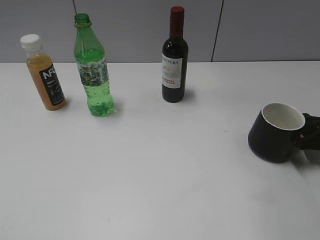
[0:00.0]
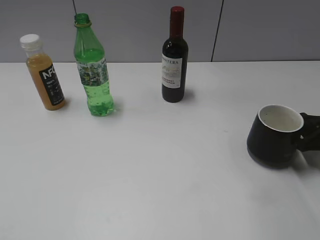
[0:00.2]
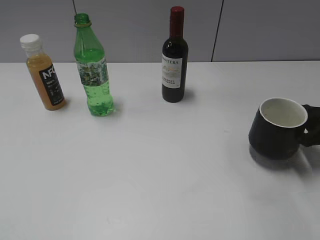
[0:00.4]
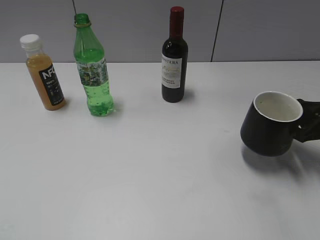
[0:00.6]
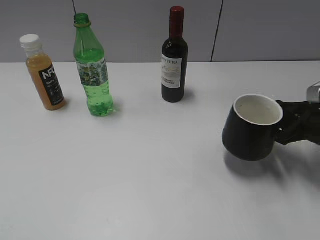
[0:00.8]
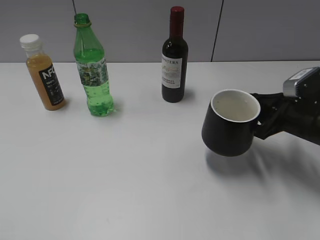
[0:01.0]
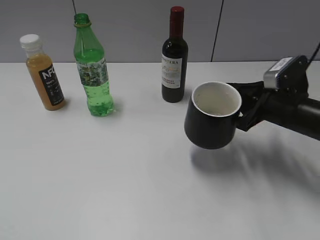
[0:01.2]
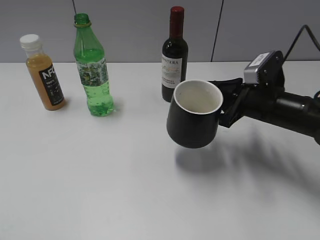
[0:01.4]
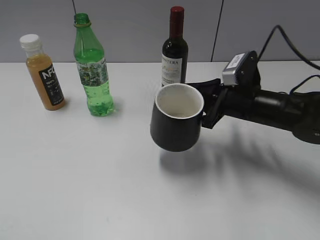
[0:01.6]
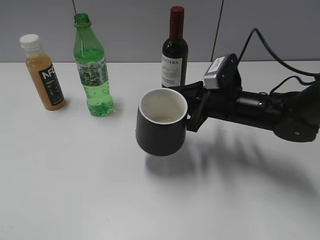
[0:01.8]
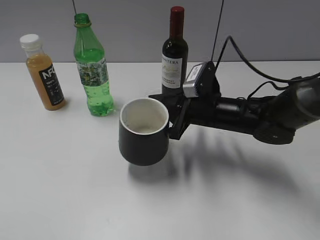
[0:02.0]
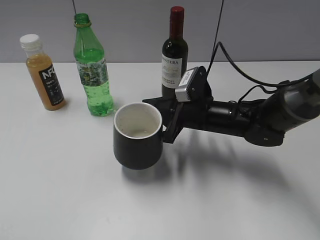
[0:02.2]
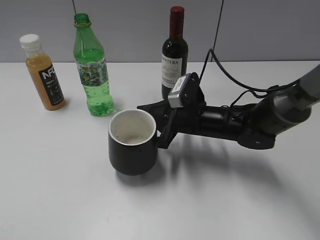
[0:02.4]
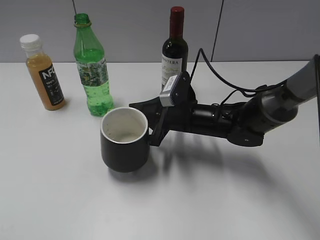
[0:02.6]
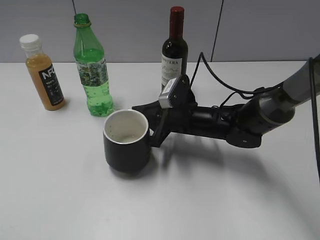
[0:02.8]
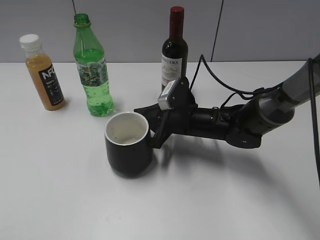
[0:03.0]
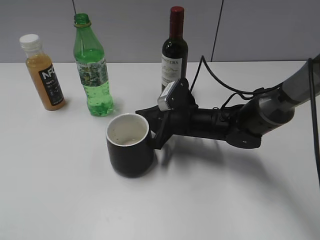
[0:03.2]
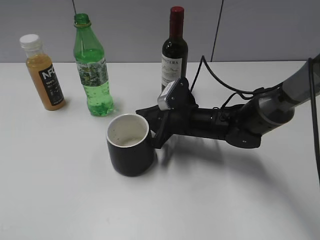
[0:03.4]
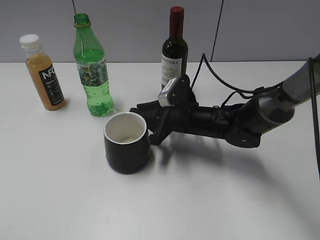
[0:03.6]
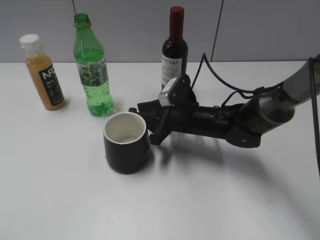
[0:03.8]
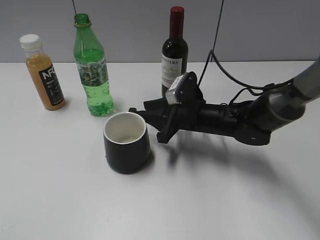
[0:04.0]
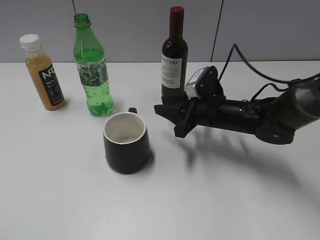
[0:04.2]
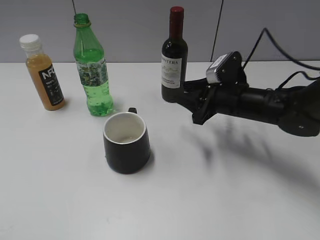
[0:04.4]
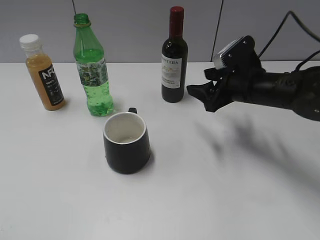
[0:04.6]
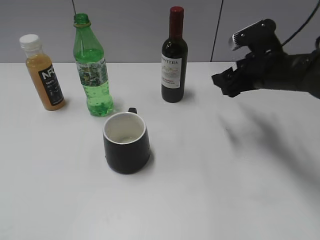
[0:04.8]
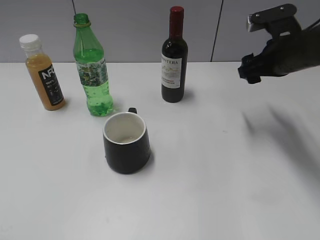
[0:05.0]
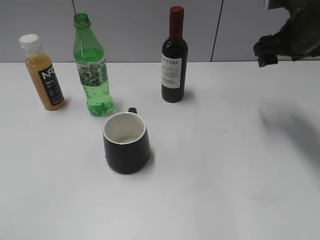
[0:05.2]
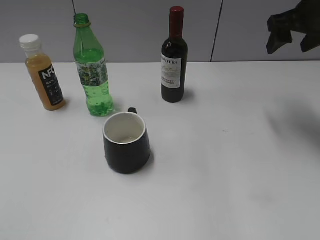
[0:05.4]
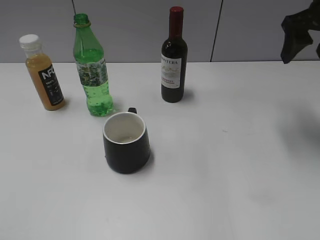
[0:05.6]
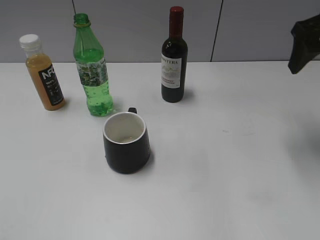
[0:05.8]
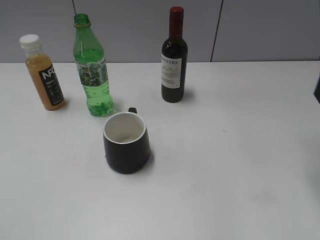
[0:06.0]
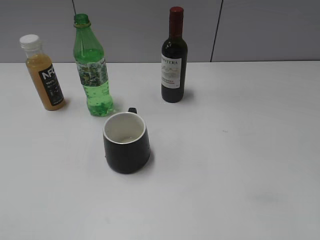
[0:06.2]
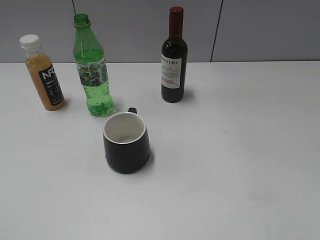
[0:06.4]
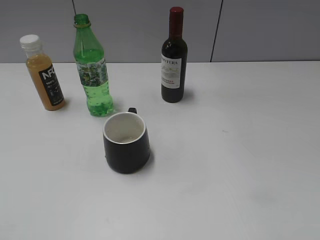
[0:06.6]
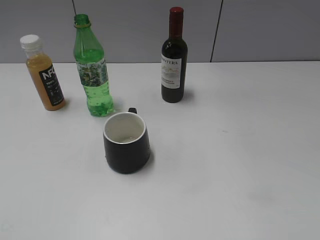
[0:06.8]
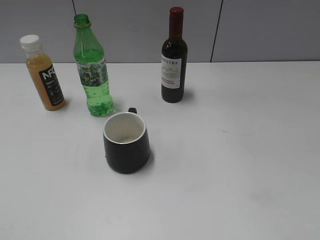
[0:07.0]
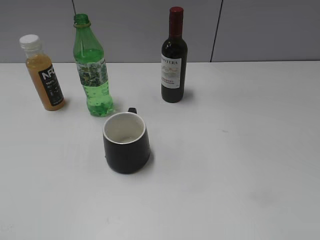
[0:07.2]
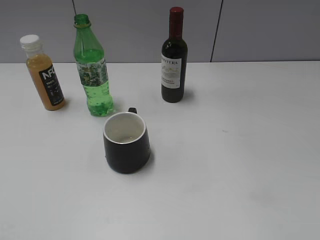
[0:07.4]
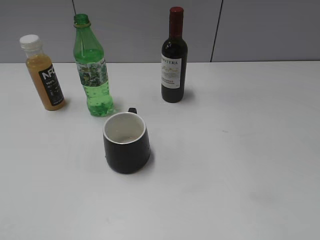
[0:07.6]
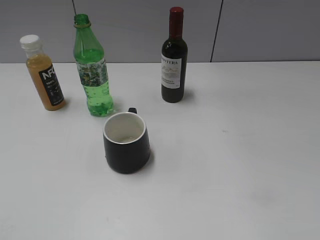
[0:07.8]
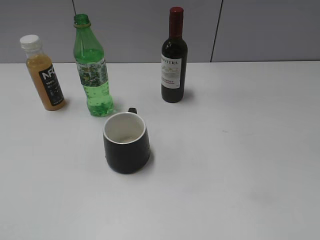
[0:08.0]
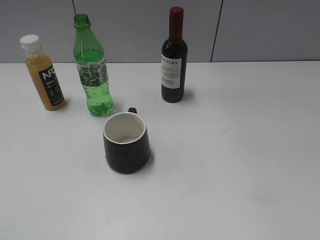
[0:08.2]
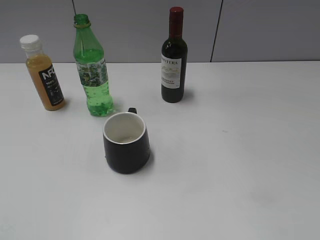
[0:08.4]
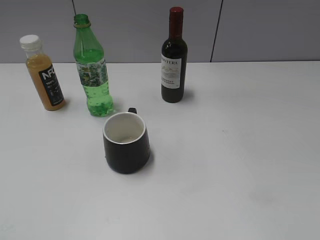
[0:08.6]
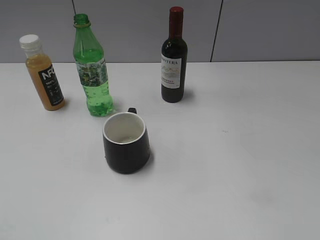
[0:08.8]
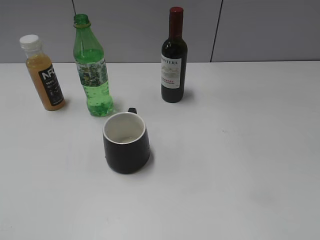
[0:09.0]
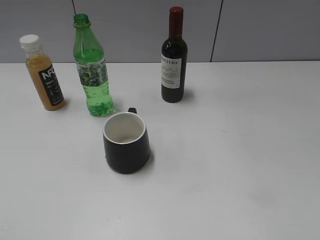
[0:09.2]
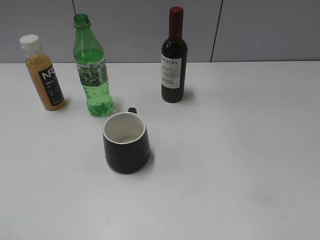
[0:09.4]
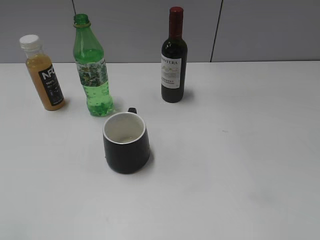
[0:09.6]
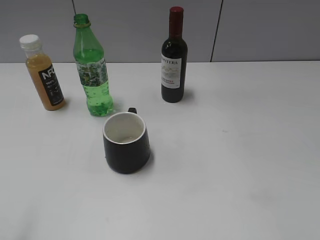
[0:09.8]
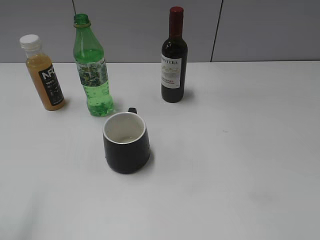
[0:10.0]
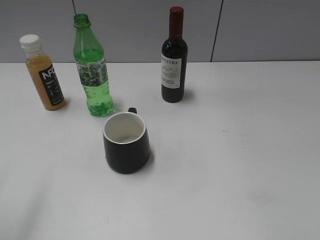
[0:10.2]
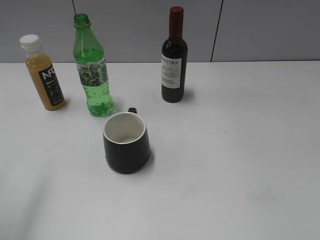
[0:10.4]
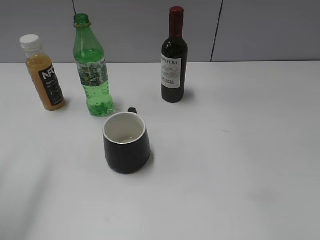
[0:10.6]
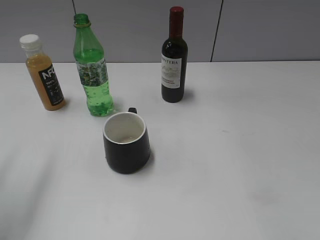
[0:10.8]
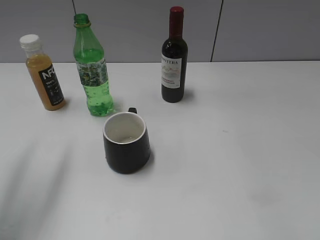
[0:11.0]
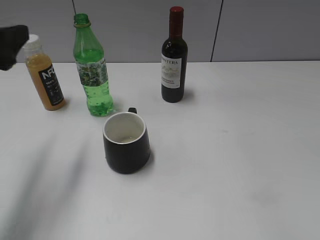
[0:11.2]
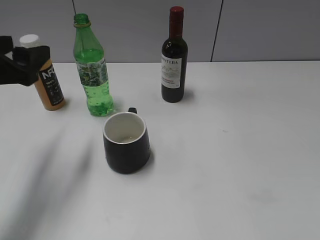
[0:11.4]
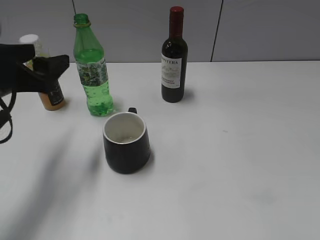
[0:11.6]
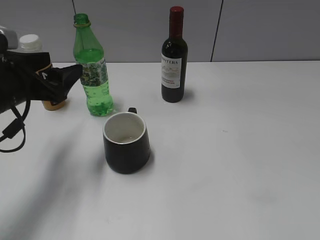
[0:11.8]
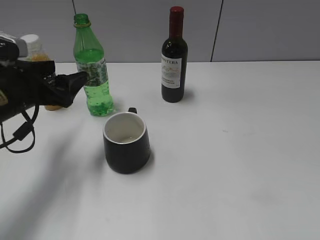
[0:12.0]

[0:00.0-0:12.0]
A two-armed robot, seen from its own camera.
Step, 0:00.0 to 0:04.0: Place the black cup in the center of view with right gripper.
0:00.0 to 0:01.6: The right gripper goes roughly 20 cm to the left.
0:01.6 to 0:03.0: The right gripper shifts about 10 cm to the left and downward.
0:03.0 to 0:04.4: The right gripper goes some 10 cm to the right, and opens up.
0:04.4 to 0:06.0: The right gripper moves upward and to the right, roughly 25 cm, and opens.
0:09.0 to 0:10.4: The left gripper goes about 15 cm forward.
0:10.4 to 0:12.0: The left gripper shifts roughly 20 cm downward, forward and to the right.

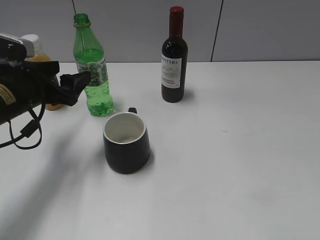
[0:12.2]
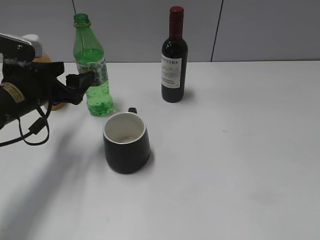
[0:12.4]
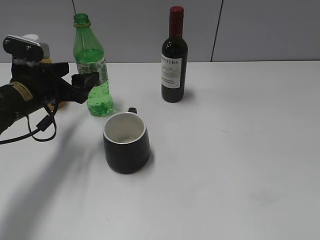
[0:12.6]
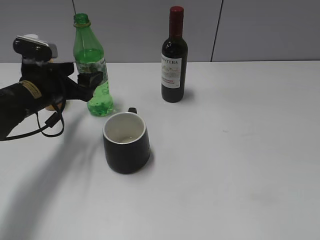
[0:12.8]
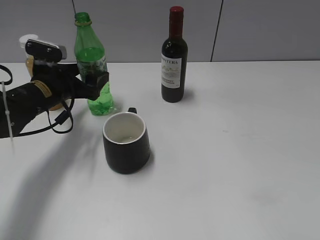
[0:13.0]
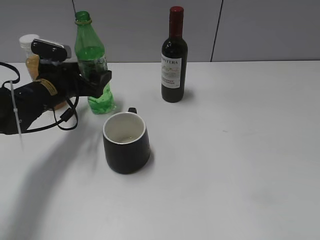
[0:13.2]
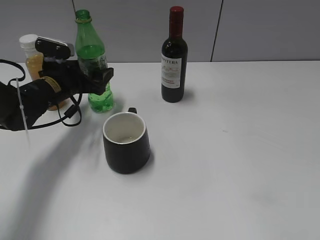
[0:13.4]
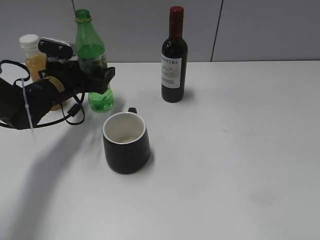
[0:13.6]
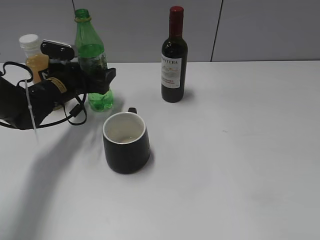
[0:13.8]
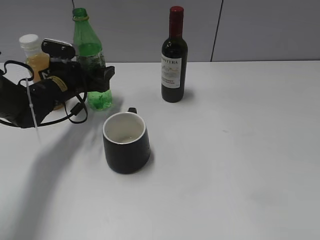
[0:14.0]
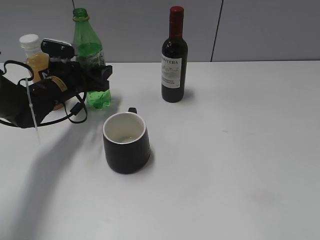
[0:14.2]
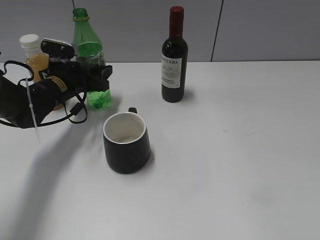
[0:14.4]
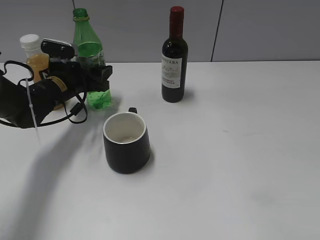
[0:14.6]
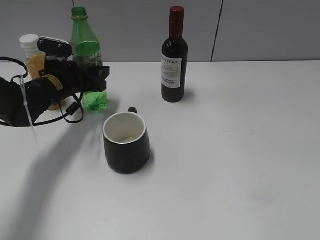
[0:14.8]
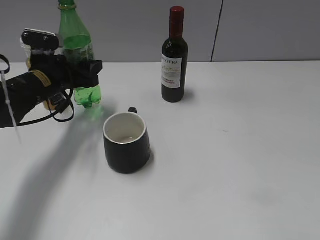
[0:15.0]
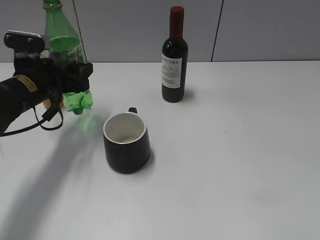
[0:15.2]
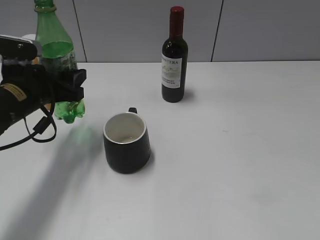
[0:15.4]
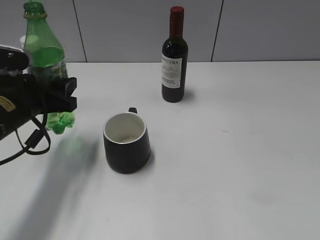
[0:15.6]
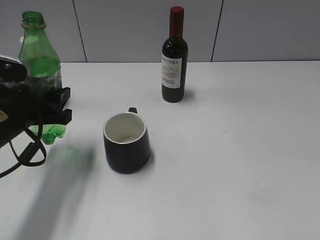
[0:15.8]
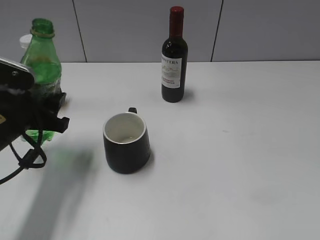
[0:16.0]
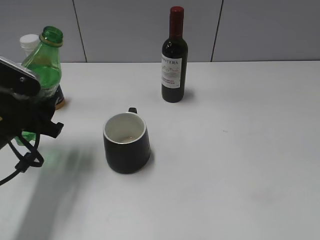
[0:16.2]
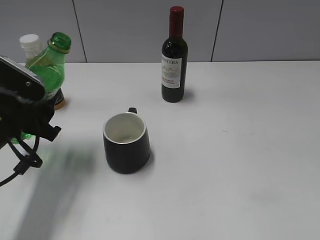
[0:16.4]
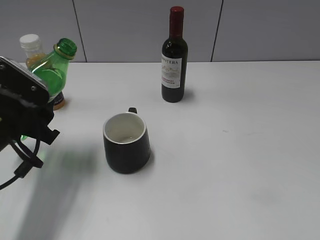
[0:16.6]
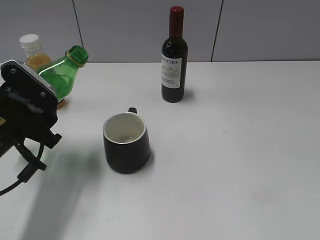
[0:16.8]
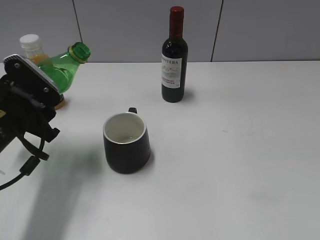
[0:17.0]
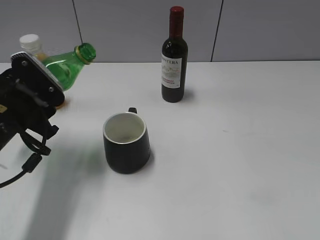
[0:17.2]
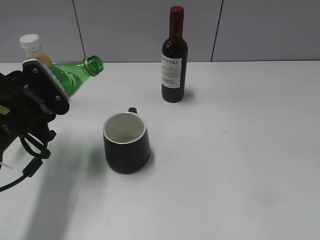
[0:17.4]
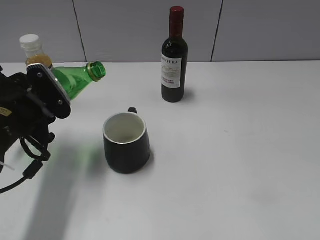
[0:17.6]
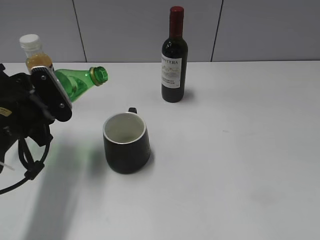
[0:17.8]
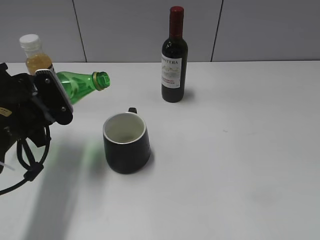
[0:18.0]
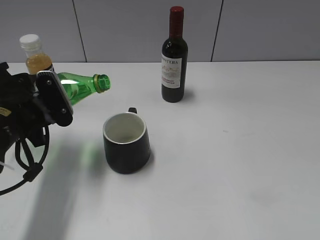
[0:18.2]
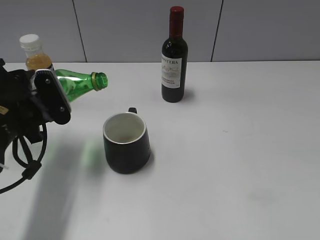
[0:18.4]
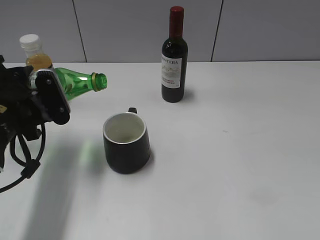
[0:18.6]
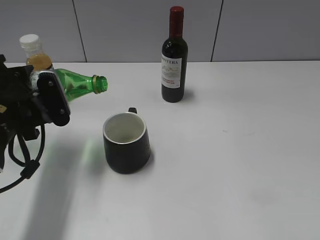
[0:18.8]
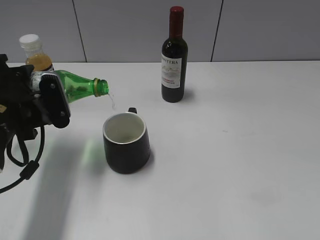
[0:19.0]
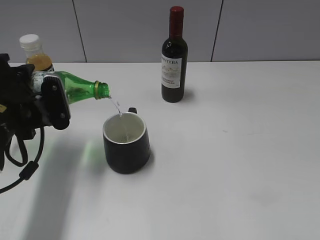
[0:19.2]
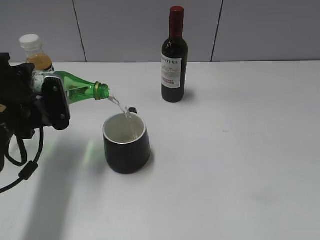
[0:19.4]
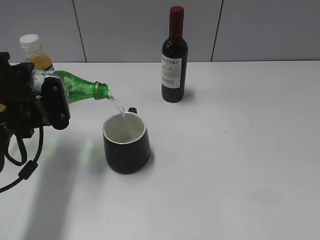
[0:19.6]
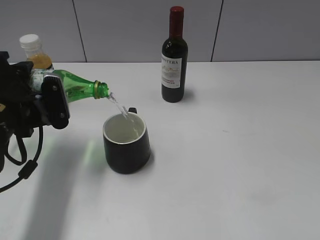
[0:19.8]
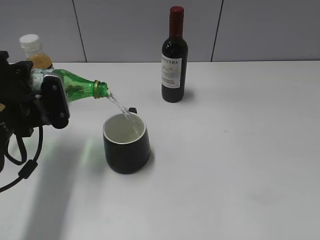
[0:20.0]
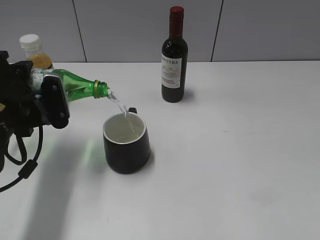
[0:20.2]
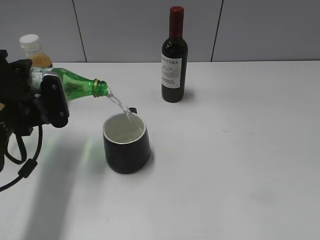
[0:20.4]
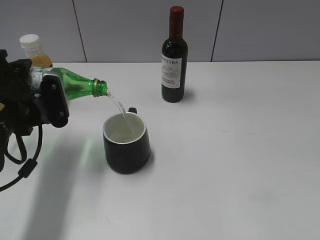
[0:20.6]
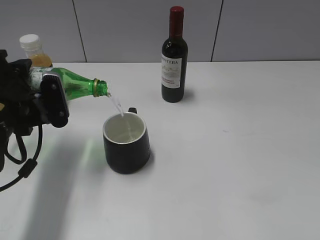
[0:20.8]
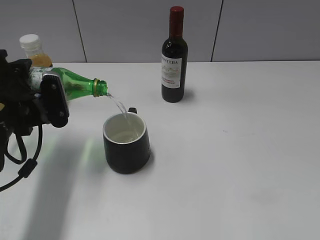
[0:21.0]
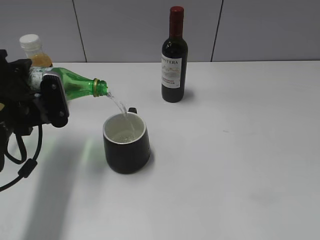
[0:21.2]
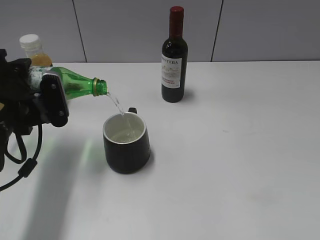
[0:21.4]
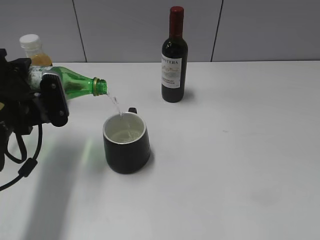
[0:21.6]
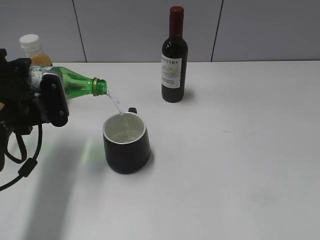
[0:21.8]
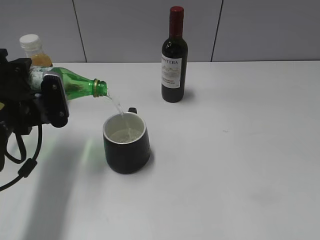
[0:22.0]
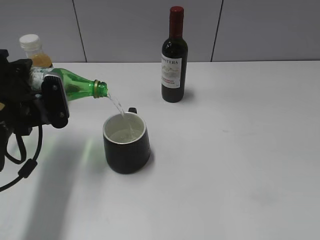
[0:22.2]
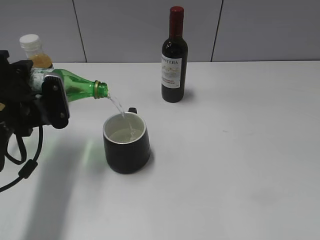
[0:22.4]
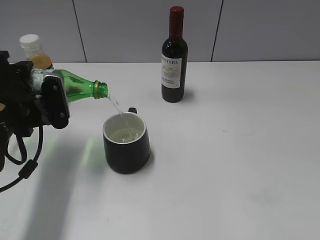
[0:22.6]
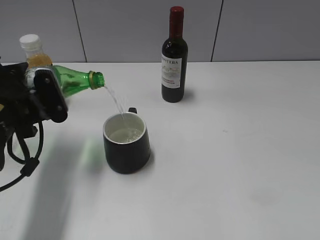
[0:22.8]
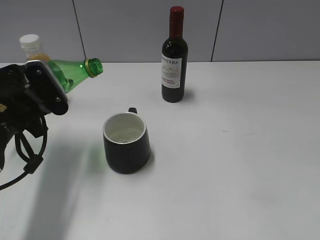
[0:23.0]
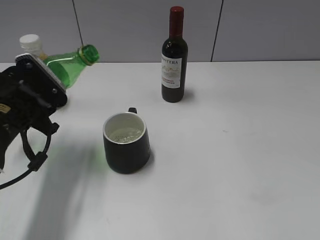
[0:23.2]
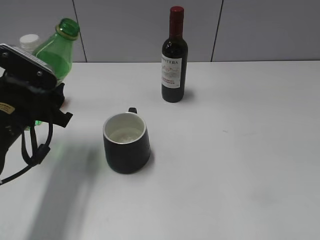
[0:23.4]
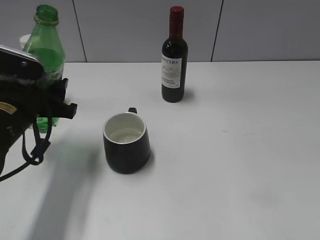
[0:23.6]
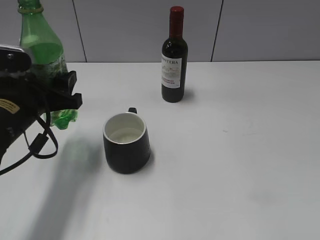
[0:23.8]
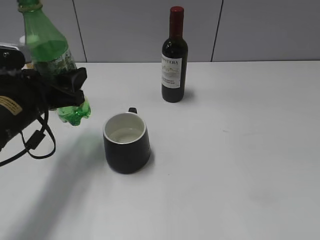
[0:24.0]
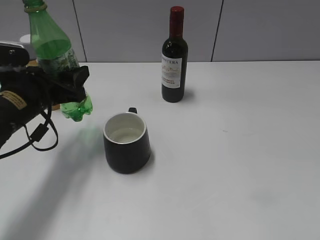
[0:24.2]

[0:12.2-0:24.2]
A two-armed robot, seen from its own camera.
Step, 0:12.2 to 0:14.4: Grasp the bottle with sprite with left gripper.
Step, 0:14.6 to 0:22.8: Pour the sprite from bottle to cup with left gripper.
0:12.2 to 0:13.8: The left gripper goes about 15 cm forward and downward.
0:13.8 to 0:15.2: The left gripper goes approximately 5 cm backward, and closes its fingers.
0:15.2 to 0:16.6: The left gripper moves backward, approximately 10 cm.
0:18.2 to 0:19.8: The grippers move only a little.
0:19.8 to 0:22.6: Both grippers stay about where they are.
